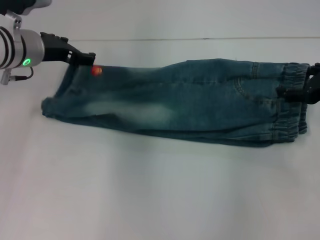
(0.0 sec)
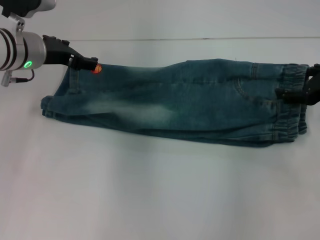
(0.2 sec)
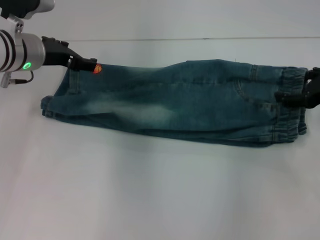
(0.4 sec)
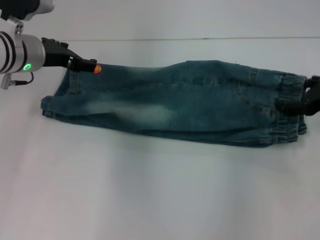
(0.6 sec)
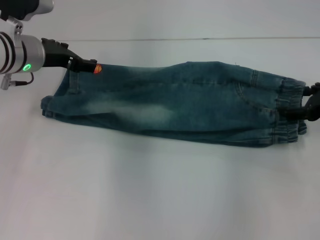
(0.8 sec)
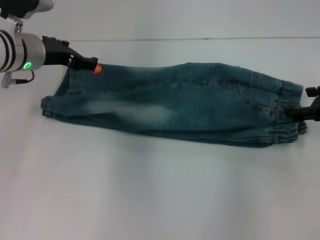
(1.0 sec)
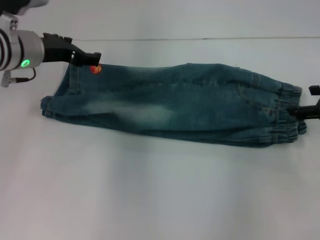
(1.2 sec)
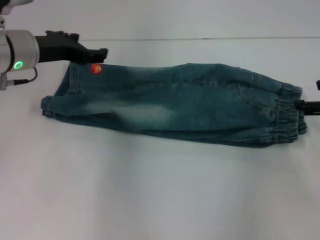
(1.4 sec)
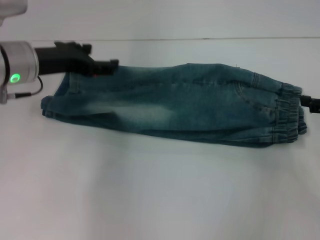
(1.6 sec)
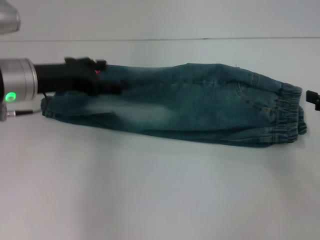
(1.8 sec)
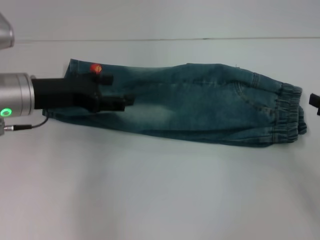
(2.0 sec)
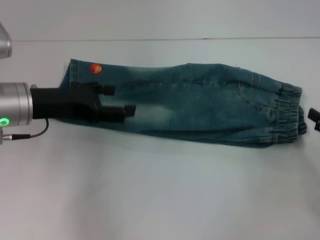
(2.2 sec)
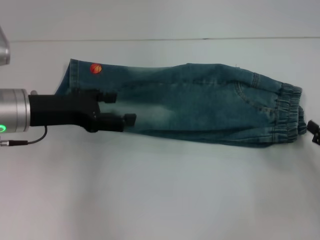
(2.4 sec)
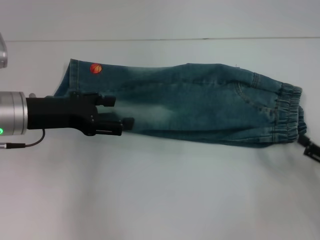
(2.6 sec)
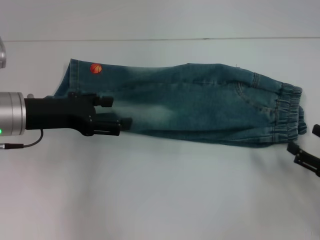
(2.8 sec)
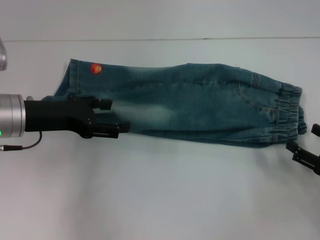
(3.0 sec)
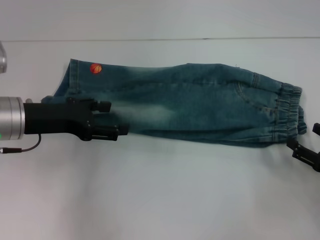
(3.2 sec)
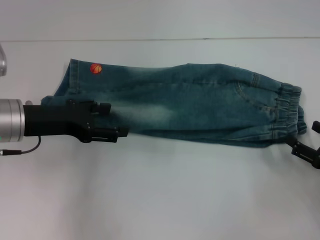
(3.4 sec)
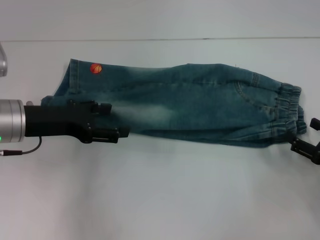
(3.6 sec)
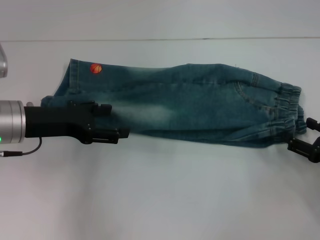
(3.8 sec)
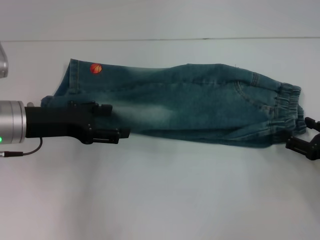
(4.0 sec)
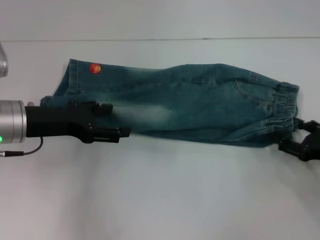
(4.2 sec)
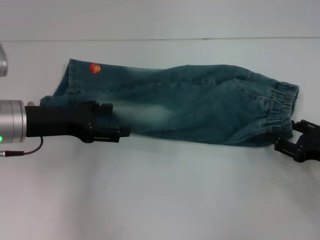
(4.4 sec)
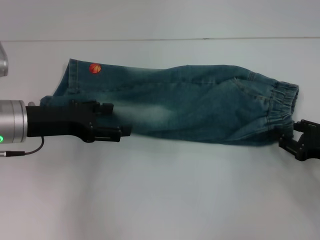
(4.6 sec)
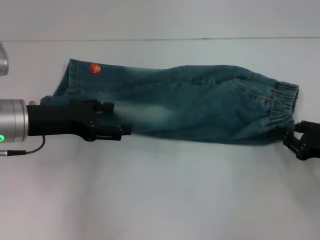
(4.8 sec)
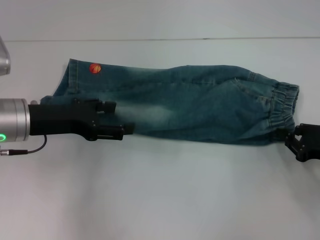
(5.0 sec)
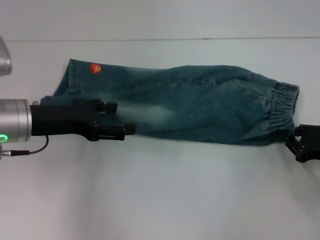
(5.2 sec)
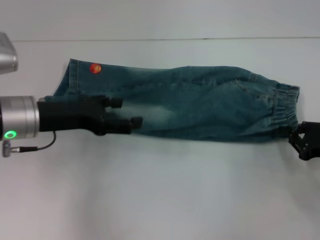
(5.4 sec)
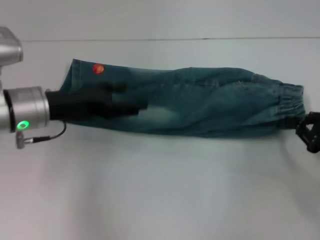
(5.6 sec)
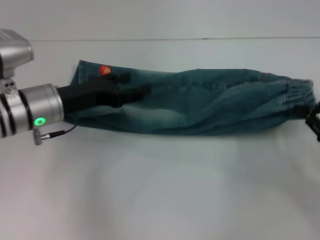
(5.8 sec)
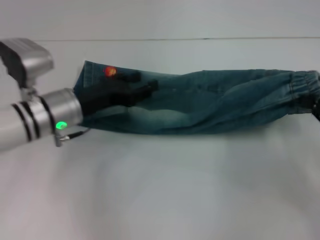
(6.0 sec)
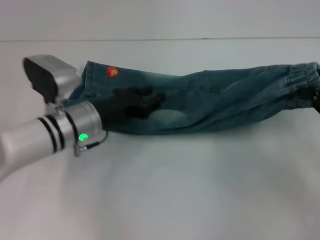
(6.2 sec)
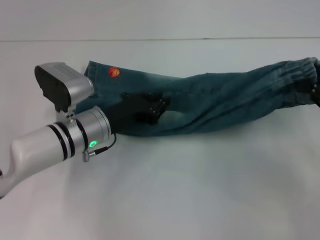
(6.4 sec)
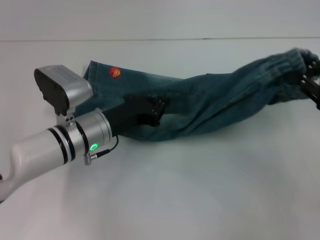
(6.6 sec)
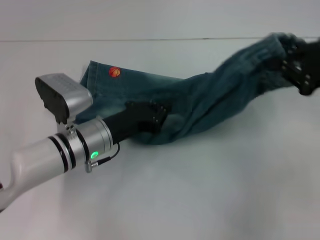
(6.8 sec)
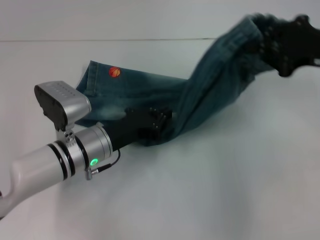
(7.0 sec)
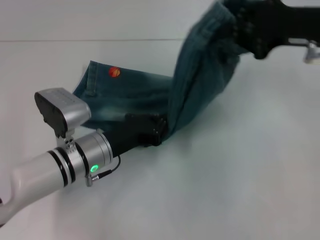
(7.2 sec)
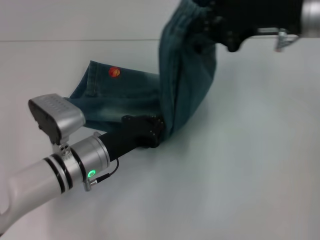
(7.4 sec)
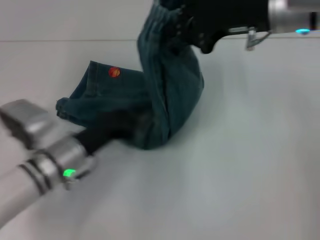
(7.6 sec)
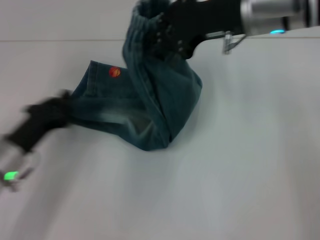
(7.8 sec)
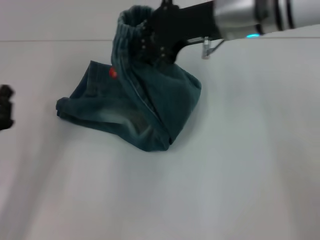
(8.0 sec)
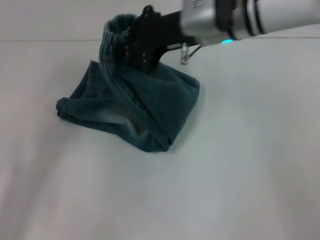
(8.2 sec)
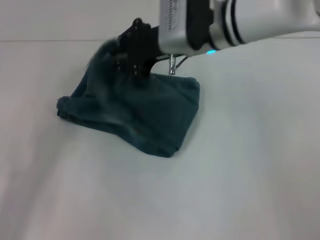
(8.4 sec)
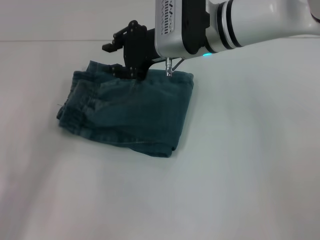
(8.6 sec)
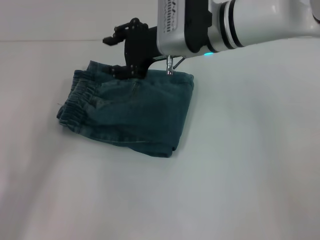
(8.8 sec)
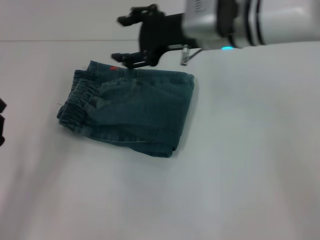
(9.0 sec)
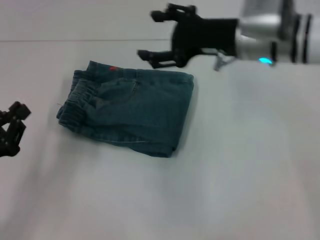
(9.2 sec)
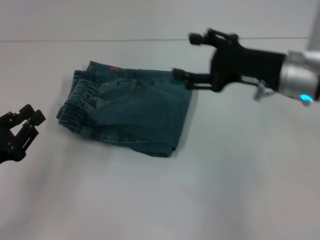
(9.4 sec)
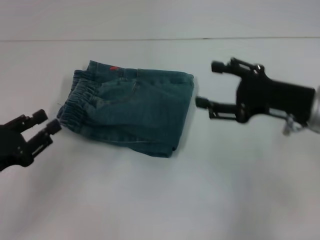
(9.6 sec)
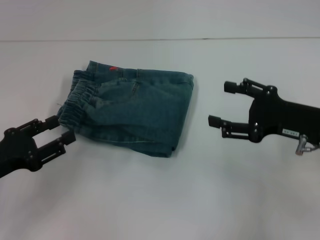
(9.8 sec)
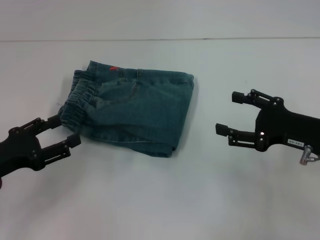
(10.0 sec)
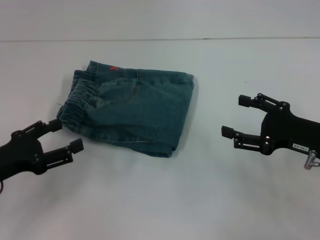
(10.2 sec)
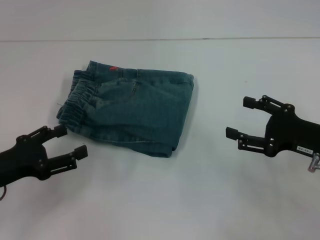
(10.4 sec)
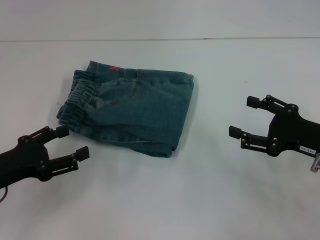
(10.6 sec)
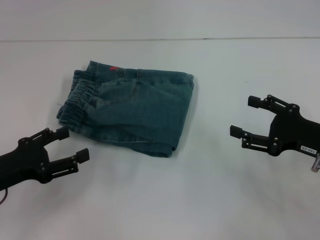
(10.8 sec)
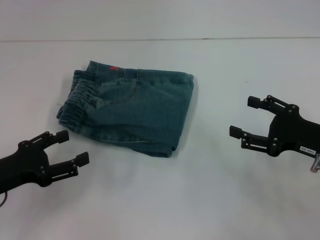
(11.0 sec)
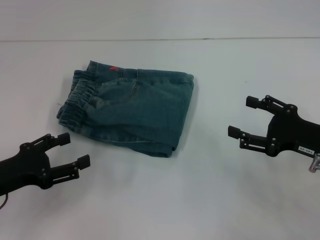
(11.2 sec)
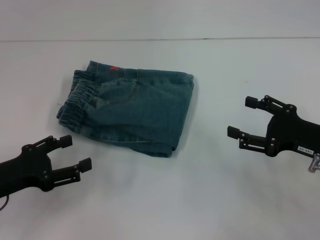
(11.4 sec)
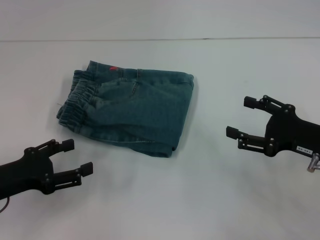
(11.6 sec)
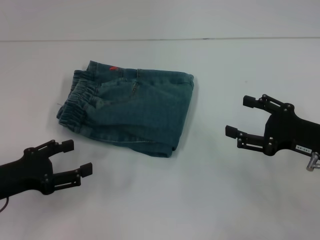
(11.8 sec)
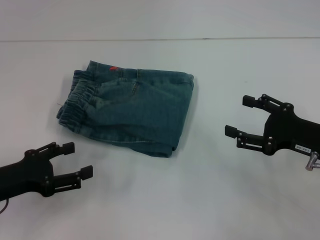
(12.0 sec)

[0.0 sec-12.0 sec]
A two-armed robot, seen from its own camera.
Step, 0.0 sec to 1.0 sec: Fold upward with your right hand.
Step, 1.2 sec to 5.4 sec: Grab the waistband with your right hand.
Step, 5.6 sec to 7.2 sec: Press the middle of the pants with your left hand.
Step, 7.6 sec to 8.6 sec: Fold to the left with your right hand.
0.0 sec to 1.6 sec: The right gripper shifts by about 5 cm.
1.6 sec to 3.0 sec: The left gripper heads backward, covering about 5 cm, while the right gripper shifts roughly 15 cm downward and backward.
3.0 sec to 4.4 sec: The right gripper shifts by roughly 5 cm.
4.4 sec to 6.0 sec: The left gripper moves to the right, about 5 cm. Meanwhile the right gripper shifts about 5 cm upward, and closes its fingers.
6.0 sec to 7.6 sec: The left gripper travels downward and backward by some 10 cm, and closes up. Meanwhile the right gripper moves to the left, upward and forward, approximately 25 cm.
7.6 sec to 9.0 sec: The right gripper shifts approximately 10 cm to the left, and opens its fingers; the left gripper heads to the left and backward, covering roughly 15 cm.
9.0 sec to 10.4 sec: The left gripper opens. Meanwhile the right gripper moves to the right, backward and downward, about 25 cm, and opens.
10.4 sec to 12.0 sec: The grippers make only small movements.
